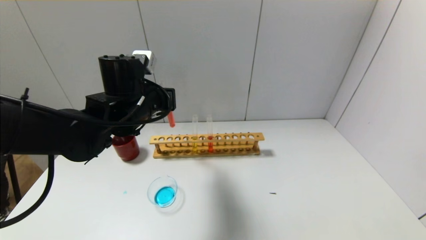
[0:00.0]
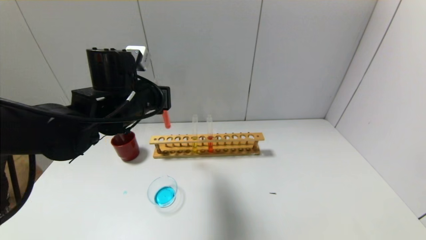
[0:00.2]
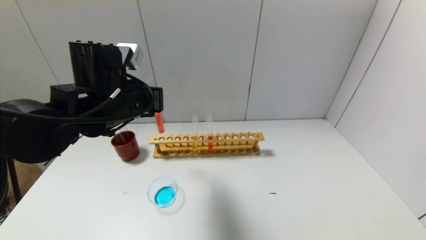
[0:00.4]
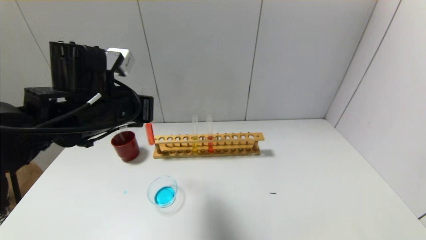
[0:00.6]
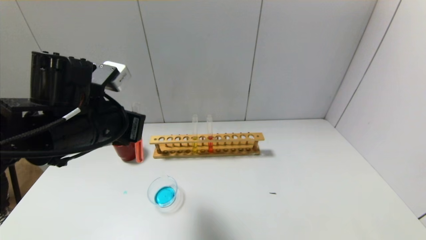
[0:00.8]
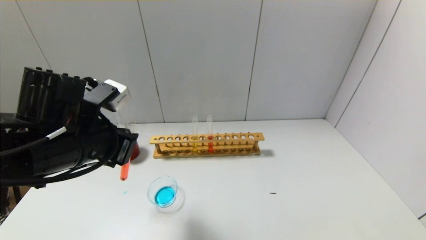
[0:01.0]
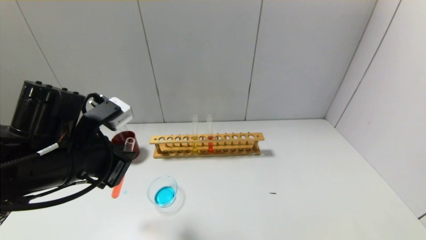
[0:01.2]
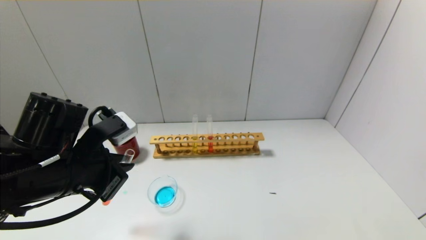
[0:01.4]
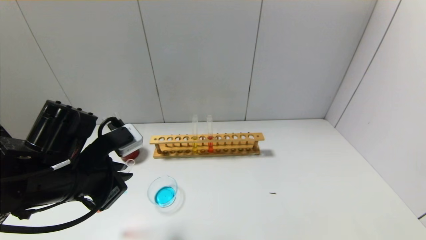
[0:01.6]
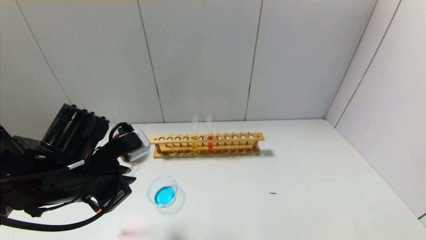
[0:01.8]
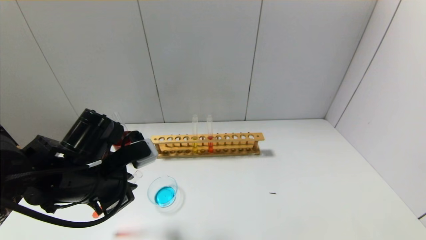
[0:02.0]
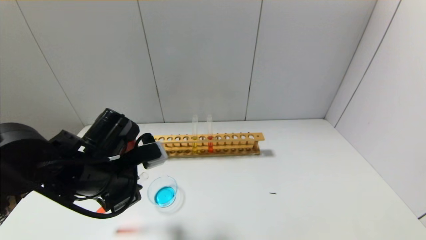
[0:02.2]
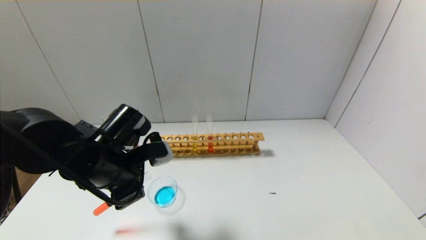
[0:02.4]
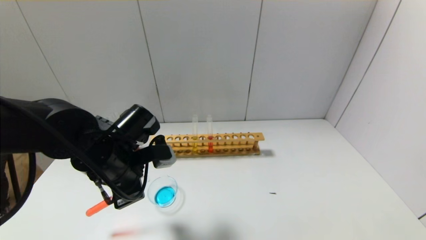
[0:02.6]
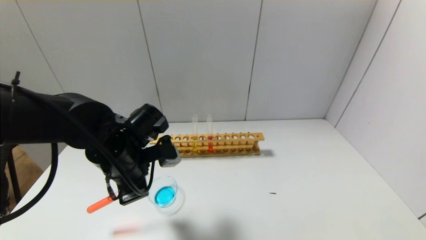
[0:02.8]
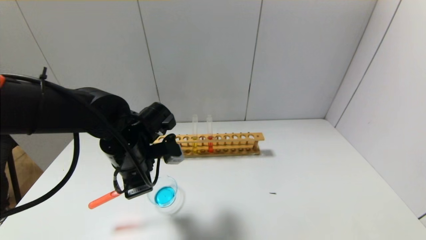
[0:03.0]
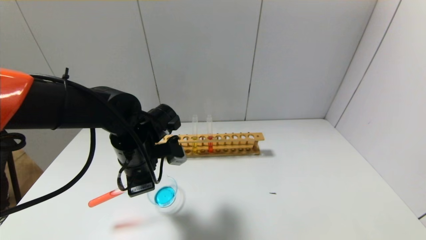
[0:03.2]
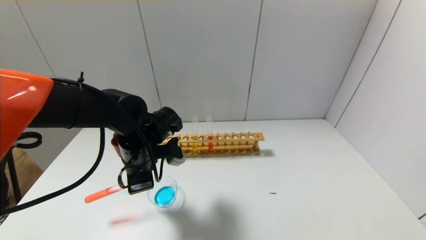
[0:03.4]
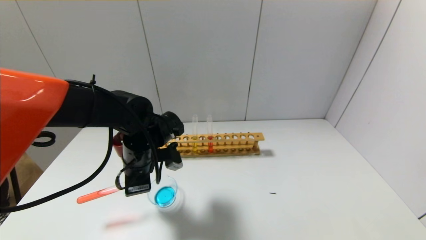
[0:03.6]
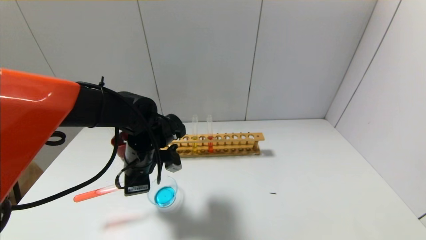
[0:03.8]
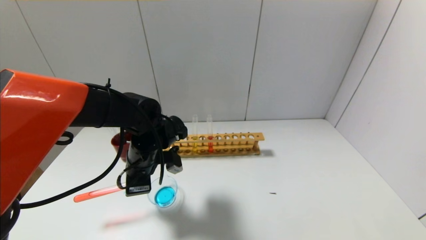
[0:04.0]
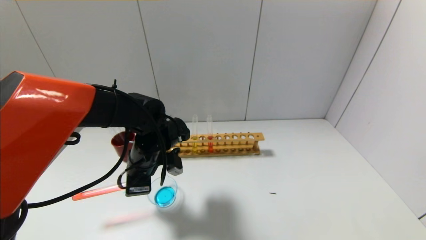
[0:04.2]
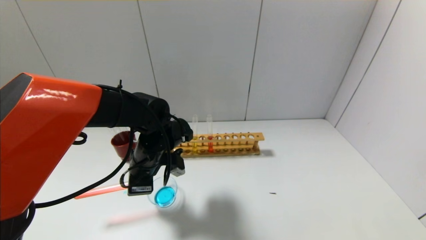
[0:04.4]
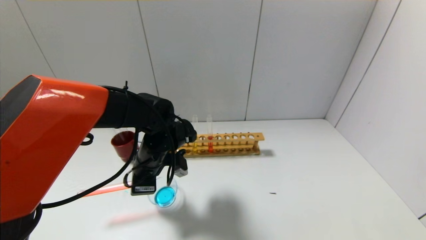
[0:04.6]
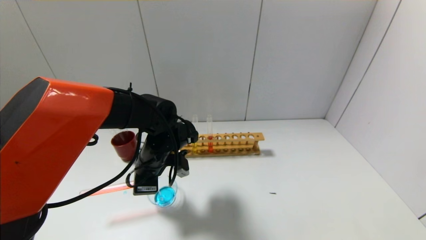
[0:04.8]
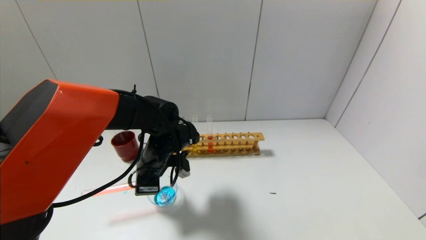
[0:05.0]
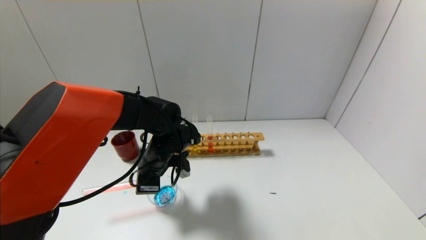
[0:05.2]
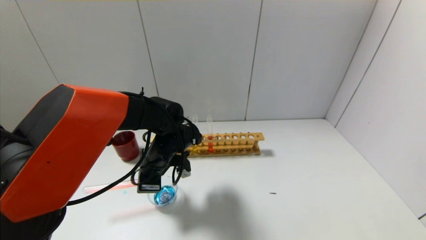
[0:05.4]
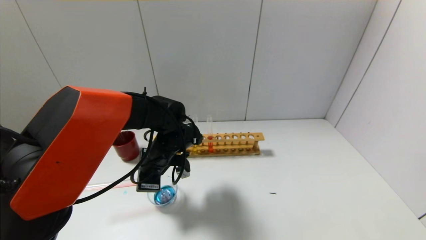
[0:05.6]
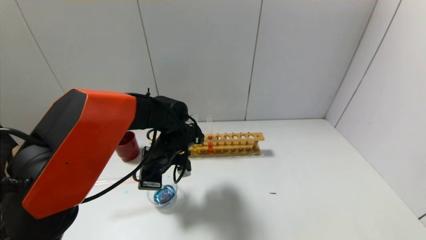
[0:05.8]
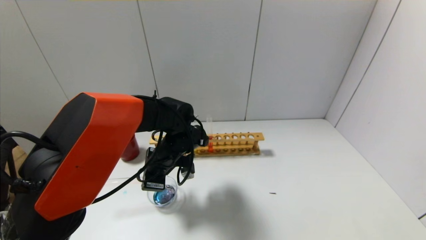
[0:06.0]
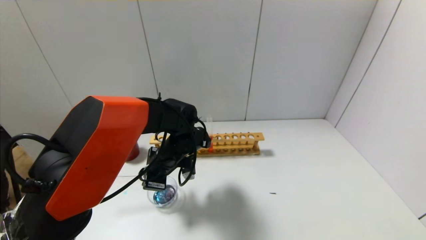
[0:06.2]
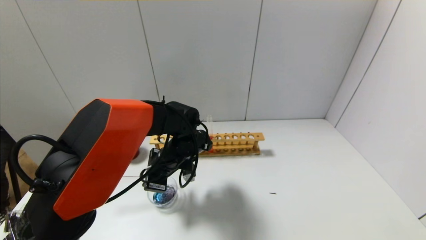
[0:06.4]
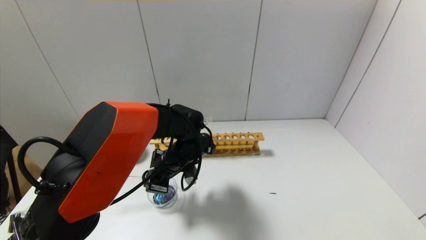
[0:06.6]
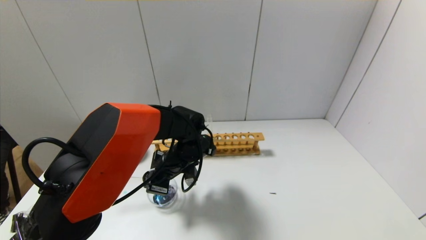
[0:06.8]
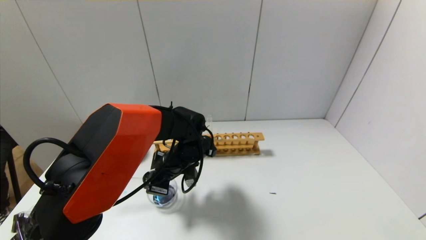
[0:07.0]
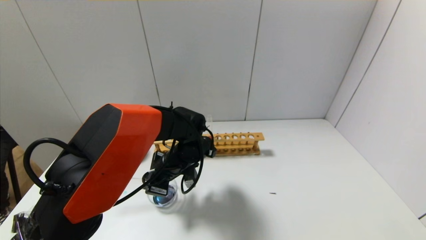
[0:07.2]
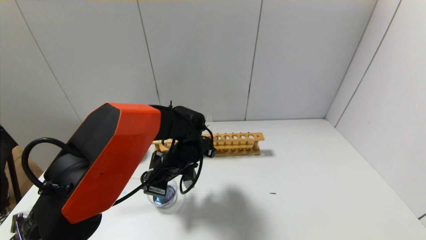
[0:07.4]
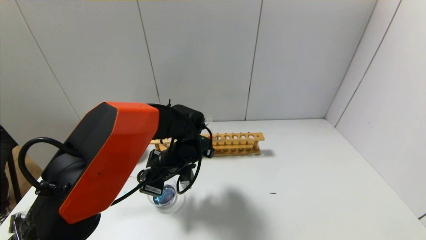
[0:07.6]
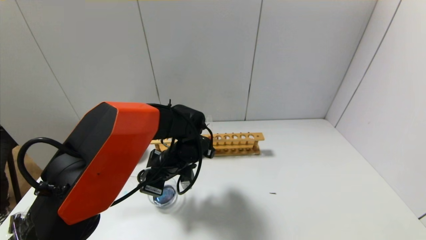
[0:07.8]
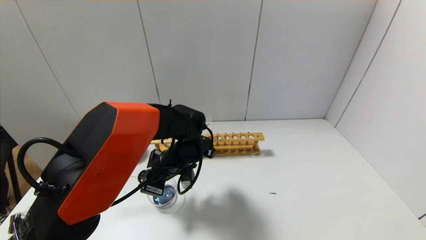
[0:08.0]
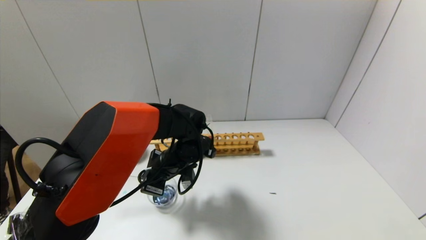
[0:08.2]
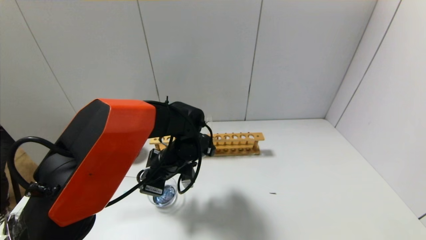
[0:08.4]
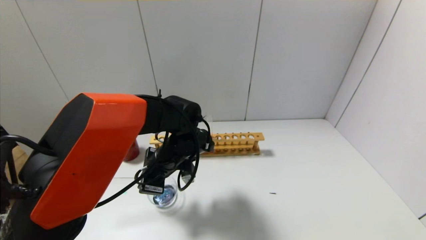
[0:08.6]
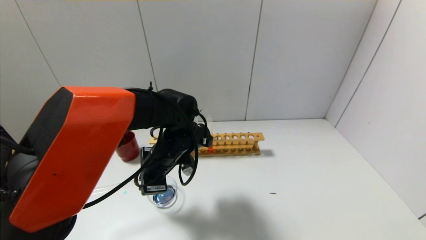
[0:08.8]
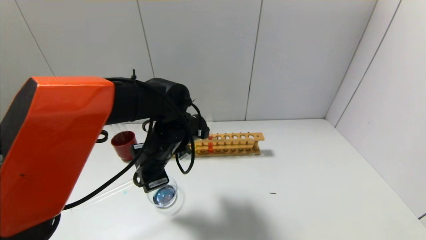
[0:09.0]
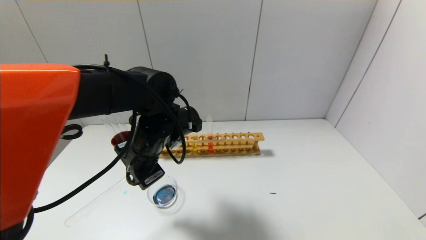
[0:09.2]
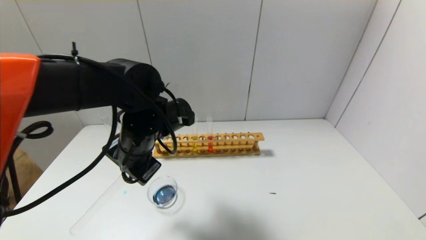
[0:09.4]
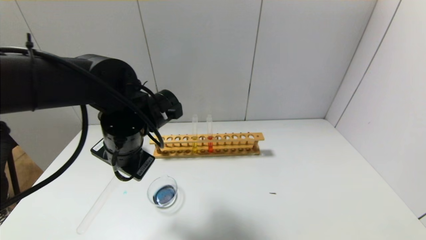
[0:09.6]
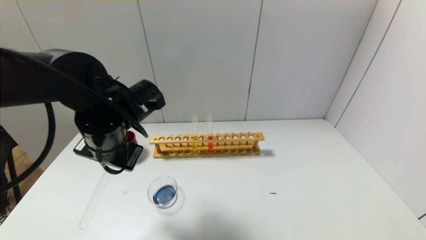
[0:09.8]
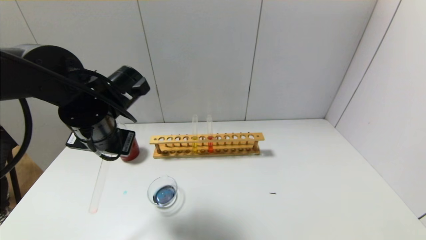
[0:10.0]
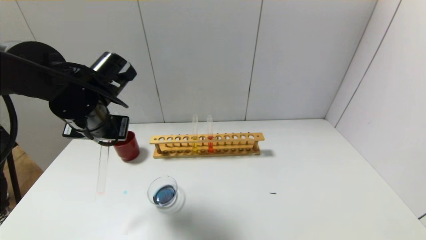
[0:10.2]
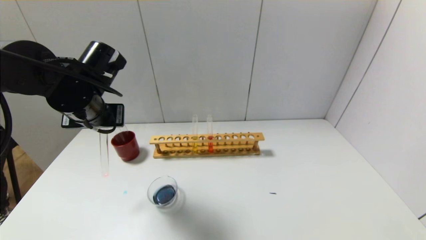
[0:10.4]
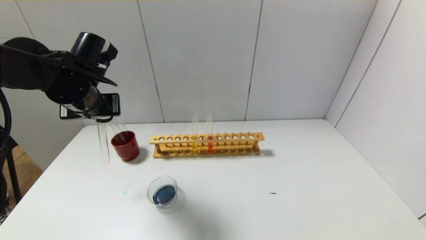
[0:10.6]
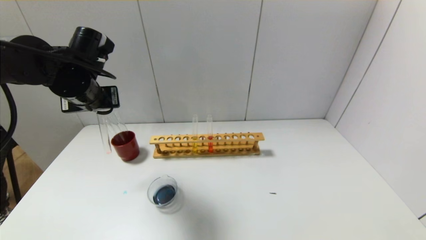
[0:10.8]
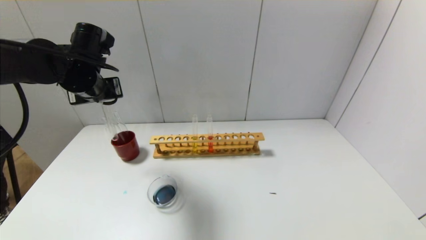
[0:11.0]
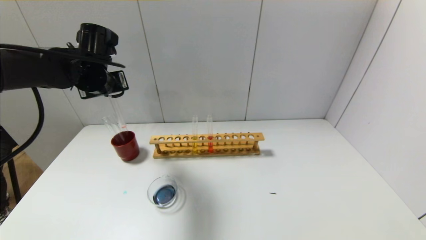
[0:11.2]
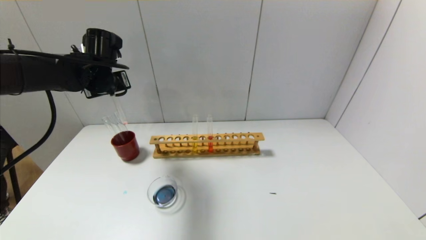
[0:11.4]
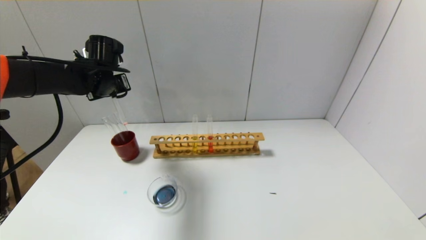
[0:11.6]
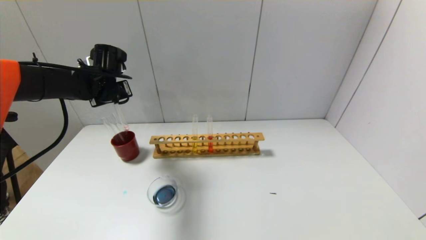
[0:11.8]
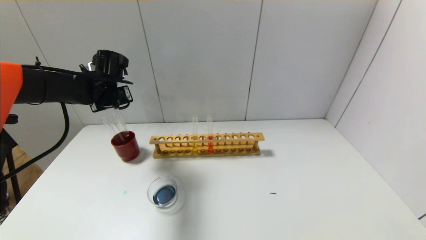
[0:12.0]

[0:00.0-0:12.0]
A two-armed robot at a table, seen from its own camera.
Step, 0:00.0 to 0:08.8: Pour the red reagent into the graduated cylinder with the left gripper.
0:00.0 to 0:01.6: The left gripper shifts roughly 15 cm backward and to the left.
0:01.6 to 0:03.0: The left gripper moves forward and to the right, about 10 cm.
0:06.0 to 0:07.6: The grippers stay close to where they were, moving slightly.
0:07.6 to 0:09.0: The left gripper moves upward, roughly 5 cm.
0:09.0 to 0:10.4: The left gripper is displaced to the left and upward by about 15 cm.
0:10.4 to 0:12.0: The left gripper travels forward by approximately 10 cm.

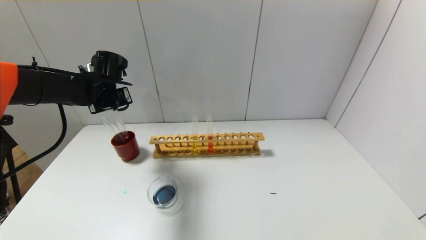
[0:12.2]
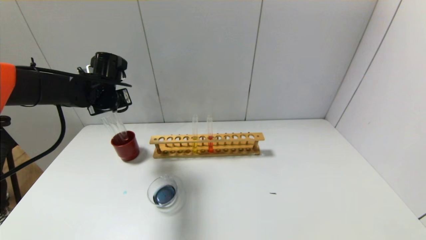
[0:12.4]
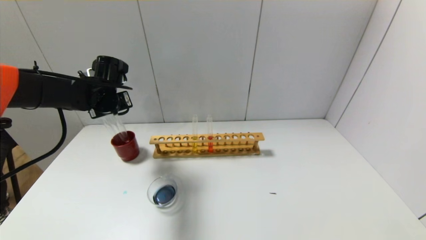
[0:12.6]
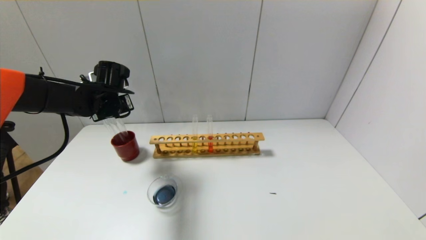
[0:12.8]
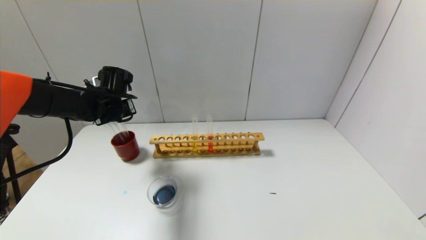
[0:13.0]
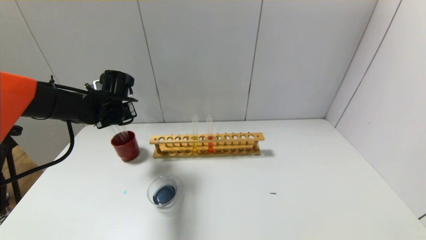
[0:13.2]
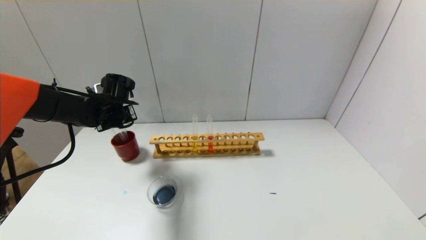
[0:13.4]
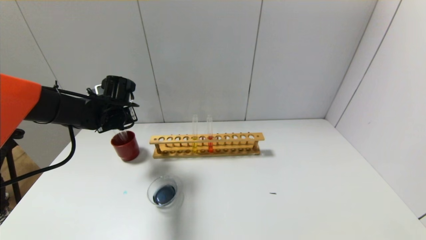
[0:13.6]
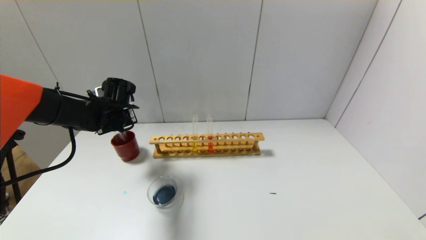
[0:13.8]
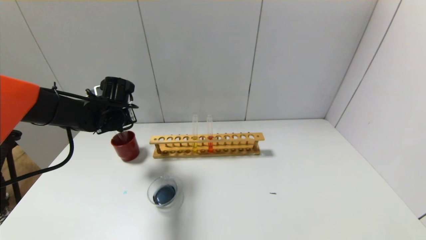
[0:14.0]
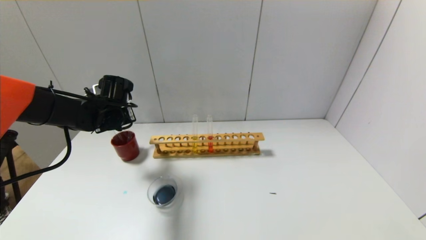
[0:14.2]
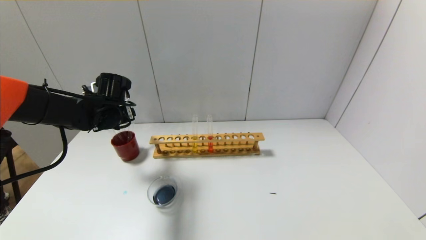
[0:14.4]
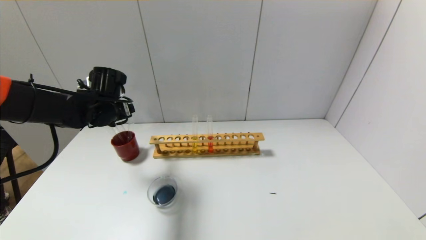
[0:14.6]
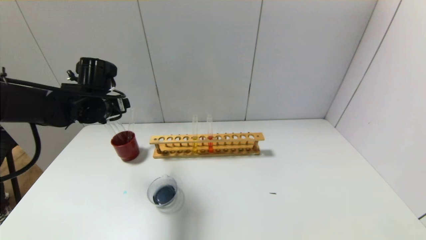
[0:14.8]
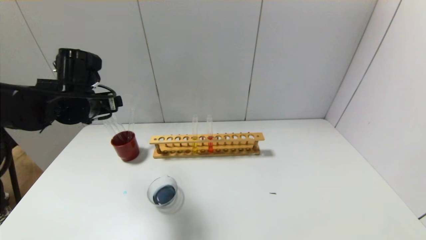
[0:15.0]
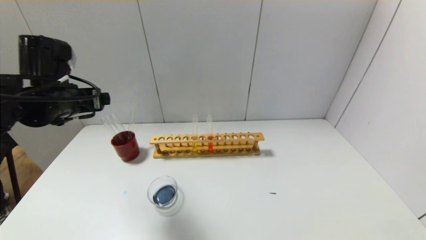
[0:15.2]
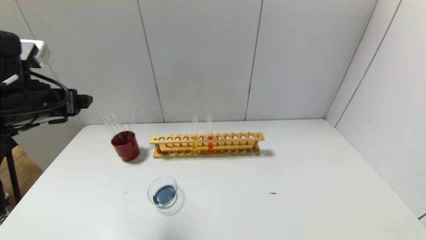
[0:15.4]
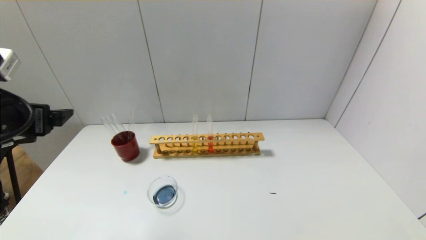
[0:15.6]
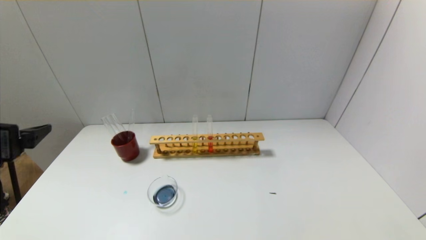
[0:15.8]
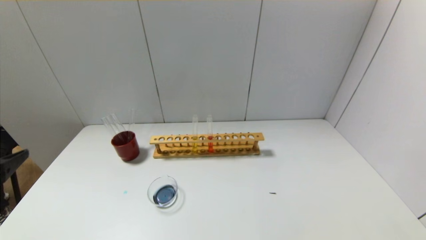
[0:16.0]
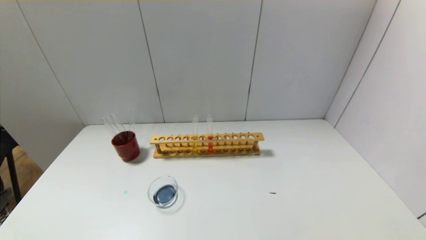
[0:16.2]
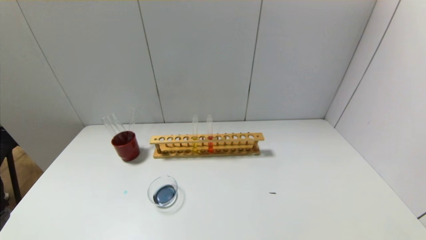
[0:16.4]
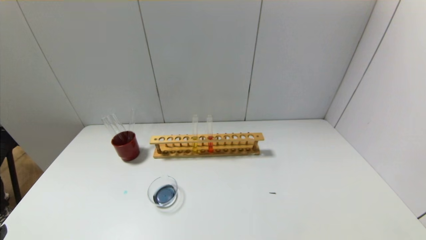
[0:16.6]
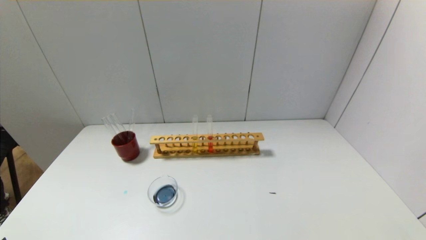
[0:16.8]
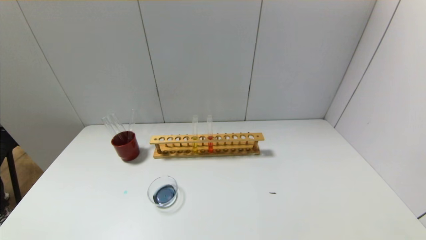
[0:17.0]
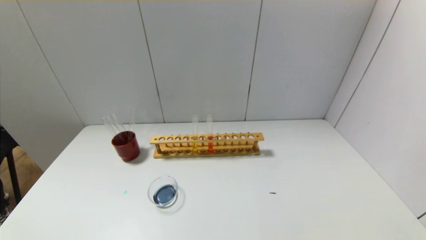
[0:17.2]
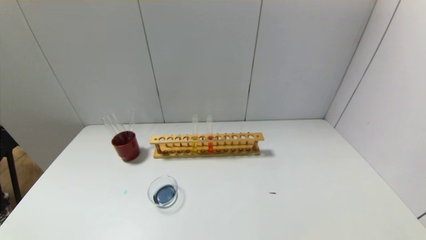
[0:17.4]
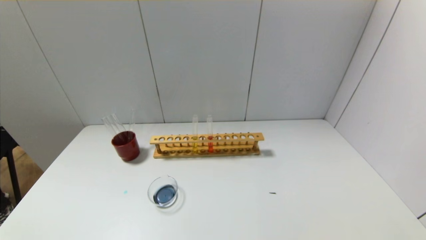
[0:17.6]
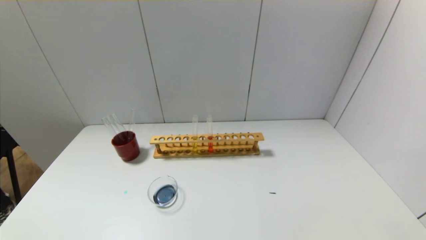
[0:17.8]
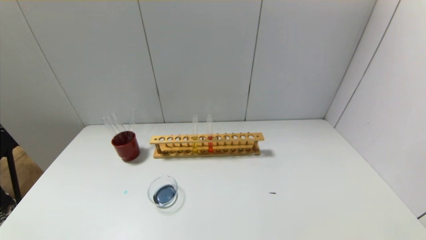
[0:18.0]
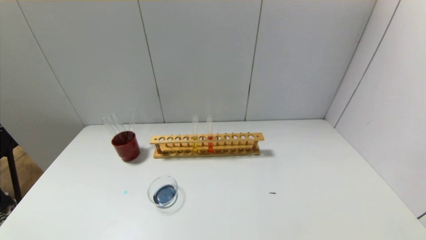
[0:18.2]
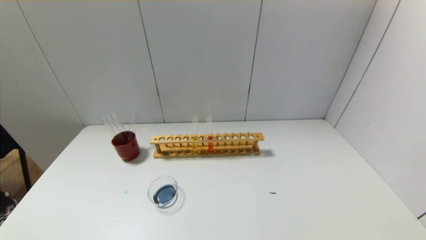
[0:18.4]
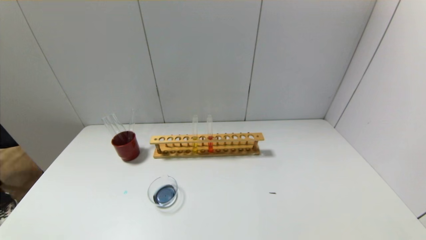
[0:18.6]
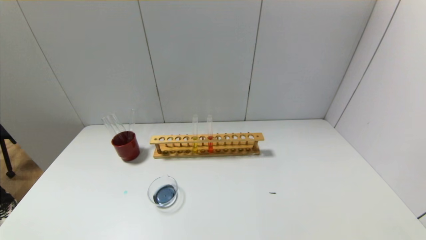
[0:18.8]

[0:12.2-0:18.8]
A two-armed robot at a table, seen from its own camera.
0:12.2 to 0:13.8: The left gripper goes some 5 cm downward.
0:13.8 to 0:15.4: The left gripper heads backward and upward, covering about 20 cm, and opens its fingers.
0:15.4 to 0:17.2: The left gripper travels backward and downward by roughly 30 cm.
0:17.2 to 0:18.8: The grippers stay close to where they were, moving slightly.
